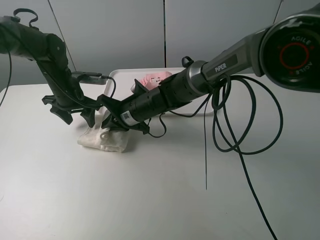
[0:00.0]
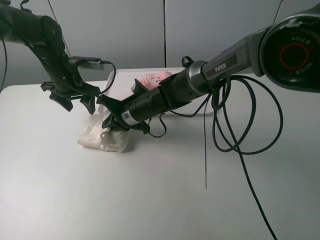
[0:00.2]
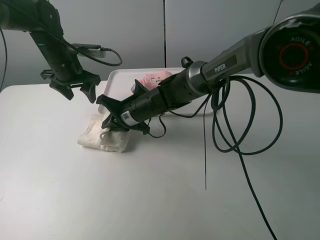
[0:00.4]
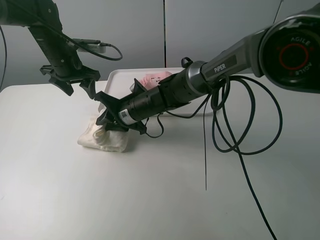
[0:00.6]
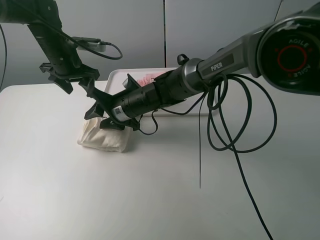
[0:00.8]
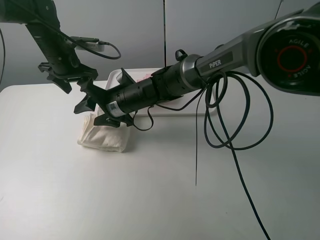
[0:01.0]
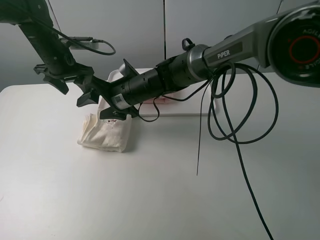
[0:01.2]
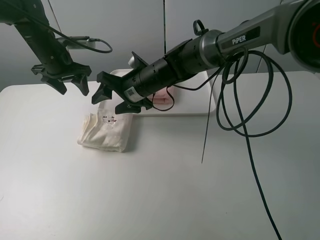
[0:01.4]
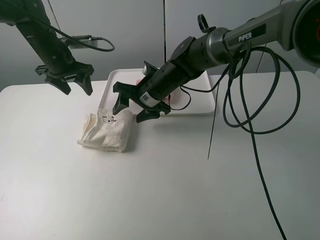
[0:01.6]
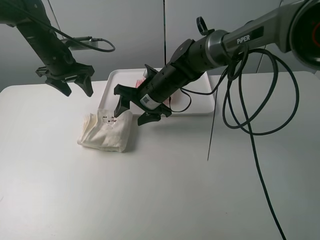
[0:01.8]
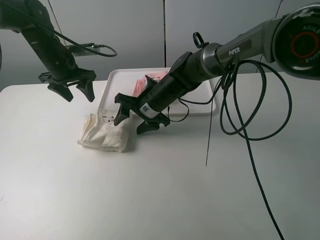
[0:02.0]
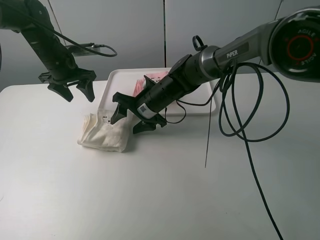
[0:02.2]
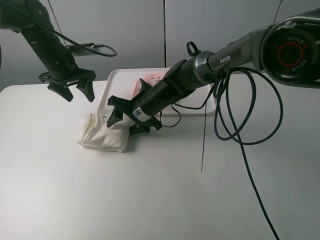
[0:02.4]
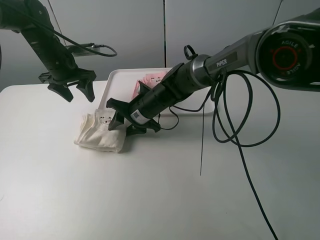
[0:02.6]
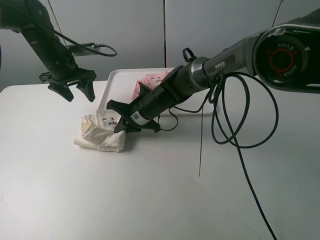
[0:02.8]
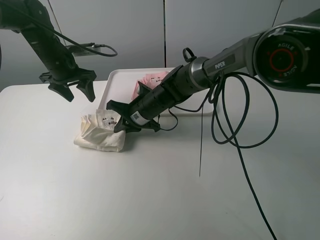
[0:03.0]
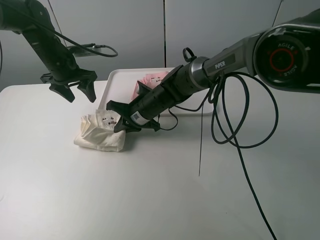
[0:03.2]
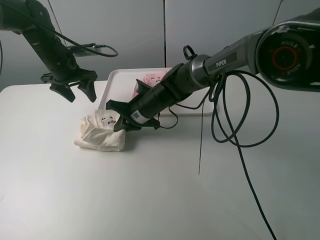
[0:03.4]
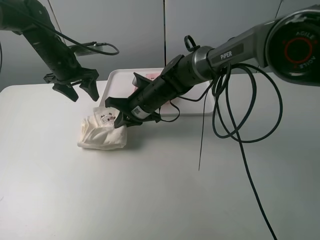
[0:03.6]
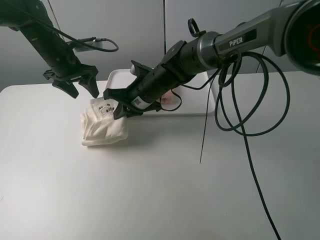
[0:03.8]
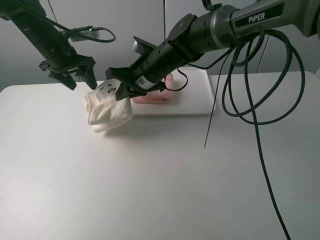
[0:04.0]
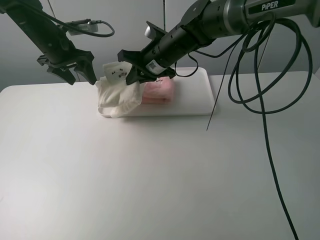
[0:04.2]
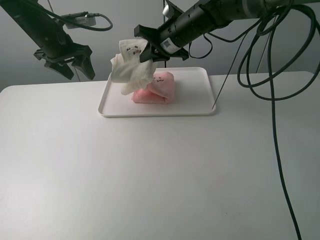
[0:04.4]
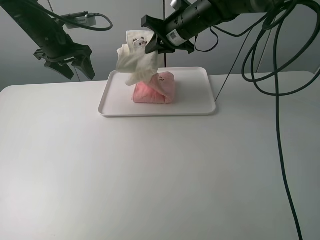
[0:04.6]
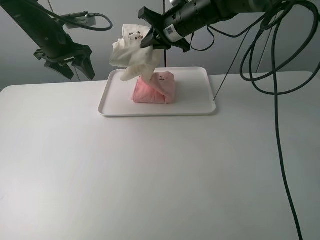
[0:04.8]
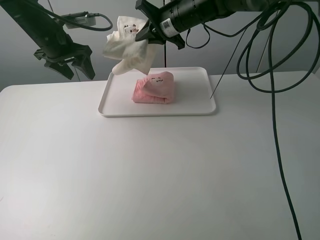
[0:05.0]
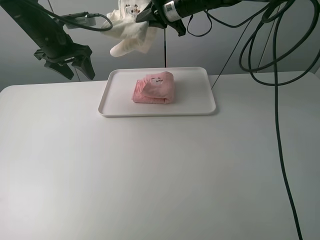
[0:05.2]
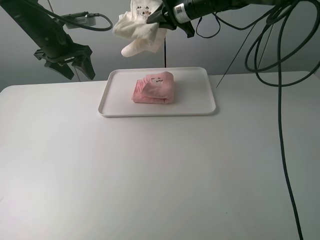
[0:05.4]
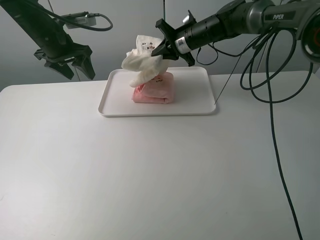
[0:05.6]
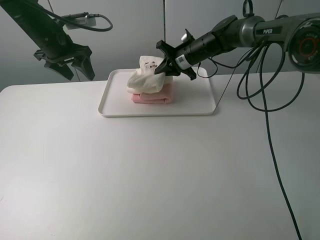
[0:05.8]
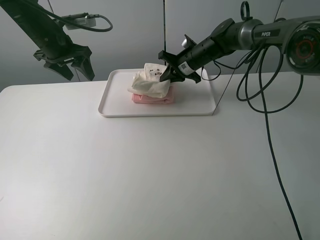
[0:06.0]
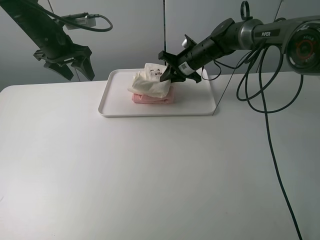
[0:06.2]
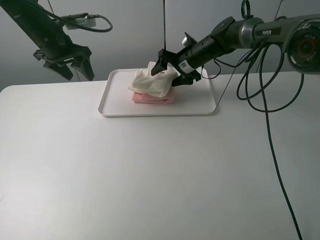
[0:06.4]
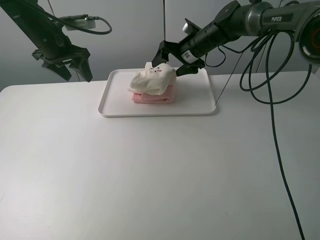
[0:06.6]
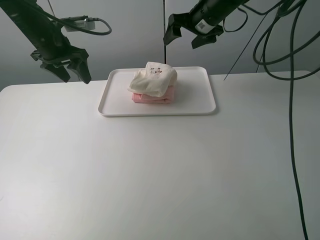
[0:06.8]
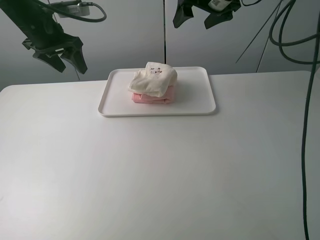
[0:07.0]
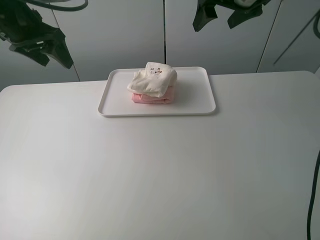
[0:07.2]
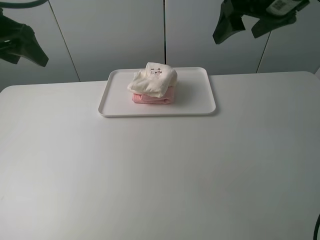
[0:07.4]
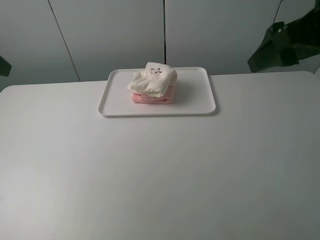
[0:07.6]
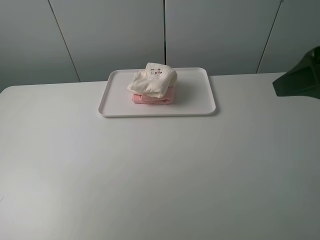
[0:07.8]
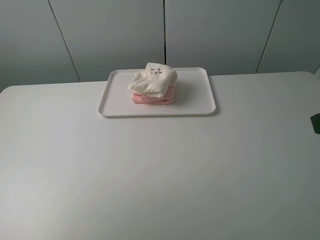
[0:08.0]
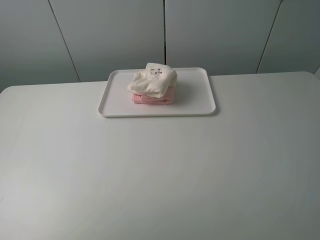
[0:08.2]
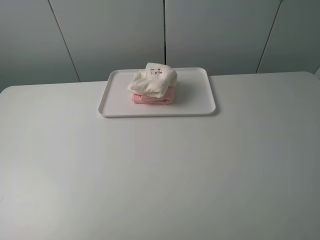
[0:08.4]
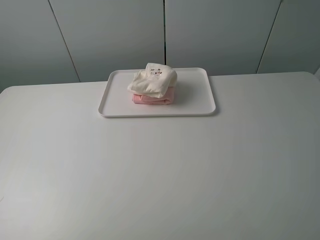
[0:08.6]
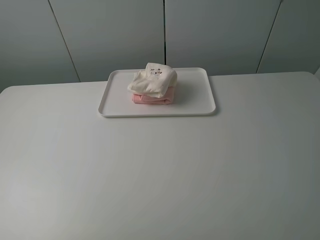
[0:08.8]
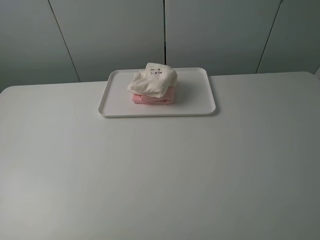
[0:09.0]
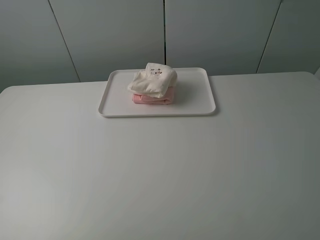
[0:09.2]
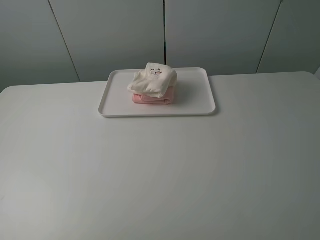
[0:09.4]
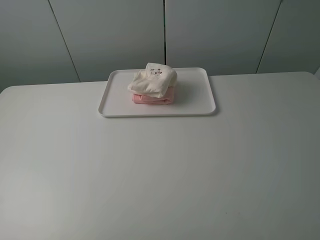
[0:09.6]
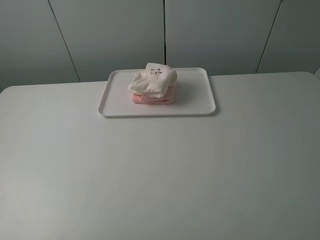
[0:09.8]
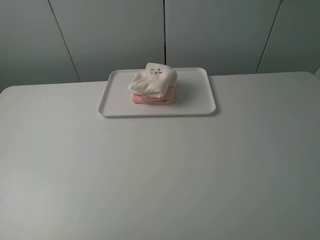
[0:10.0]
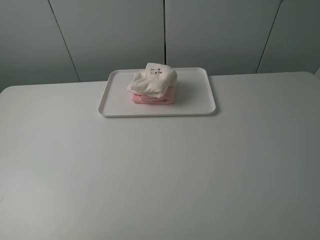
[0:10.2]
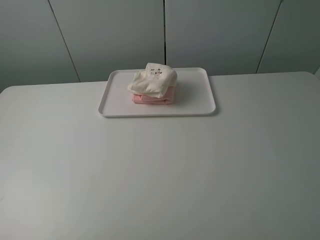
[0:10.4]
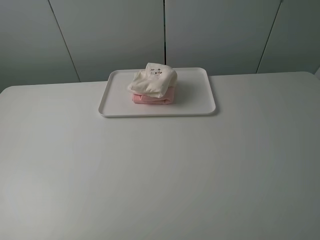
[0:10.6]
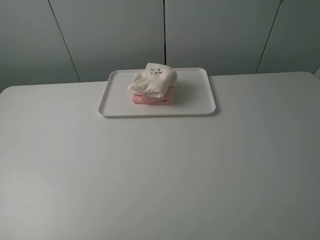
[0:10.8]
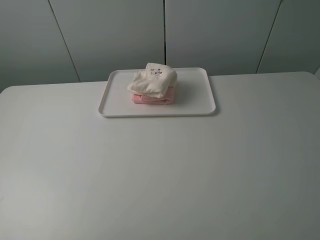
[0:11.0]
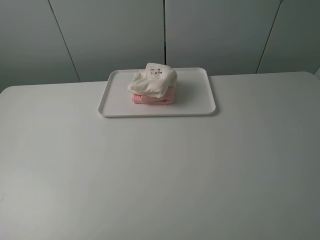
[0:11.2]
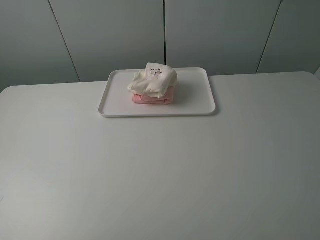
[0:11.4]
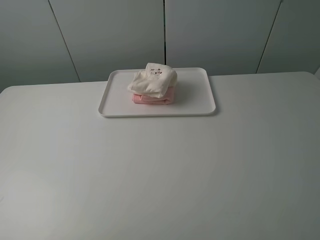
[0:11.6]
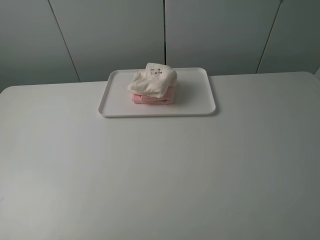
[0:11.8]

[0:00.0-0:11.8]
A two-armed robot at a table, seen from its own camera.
Task of the whole recording: fold one of the towels by two grippers and place it on the tray,then fold another towel by two grippers and place it on the folded towel.
Step, 1.2 to 2.8 s: Grasp the white towel with the right gripper.
Step, 3.0 to 6.6 s: Place the white towel on the pink towel with the right gripper.
0.0 to 1.4 s: The grippers both shift upward by roughly 5 cm. The right gripper opens its fingers.
1.4 to 3.0 s: The right gripper heads downward, covering about 5 cm, and closes its fingers.
3.0 to 4.4 s: The right gripper goes some 20 cm upward, forward and to the right, while the left gripper goes approximately 5 cm upward.
4.4 to 6.0 s: The right gripper shifts roughly 10 cm downward and forward.
6.0 to 7.4 s: The right gripper travels upward, backward and to the right by roughly 30 cm, and opens. The left gripper moves backward and upward, about 20 cm.
7.4 to 8.8 s: The grippers both shift backward by roughly 30 cm.
10.4 to 11.8 s: The two grippers keep their place.

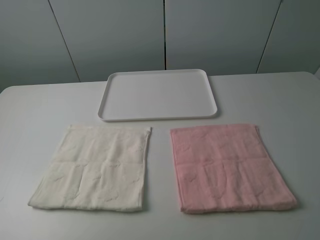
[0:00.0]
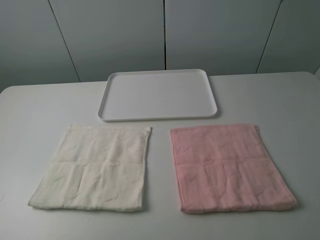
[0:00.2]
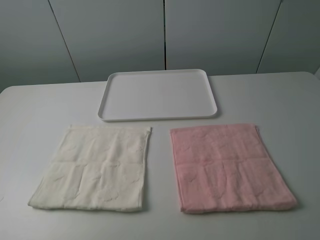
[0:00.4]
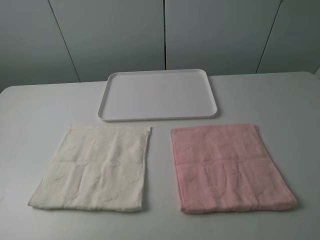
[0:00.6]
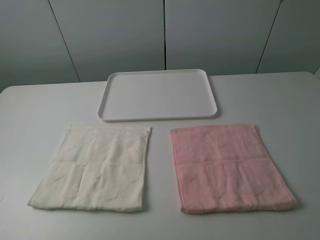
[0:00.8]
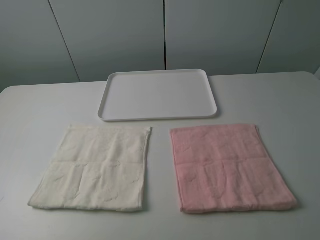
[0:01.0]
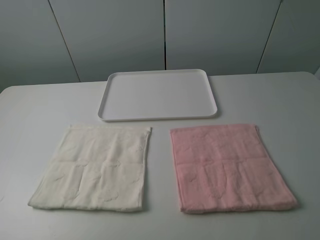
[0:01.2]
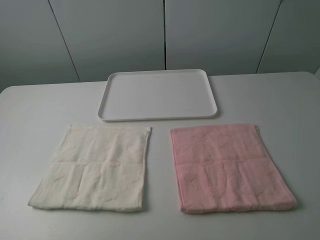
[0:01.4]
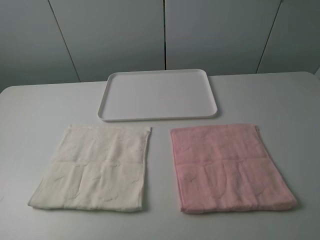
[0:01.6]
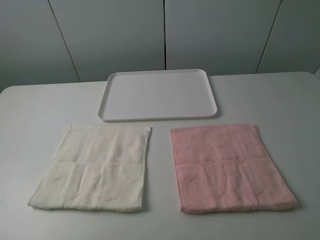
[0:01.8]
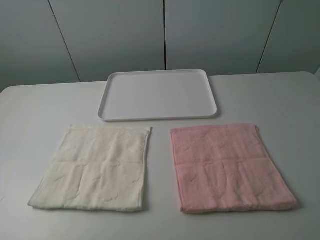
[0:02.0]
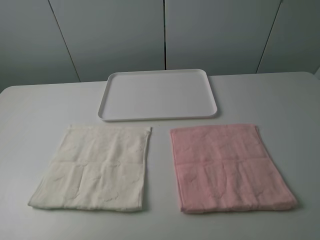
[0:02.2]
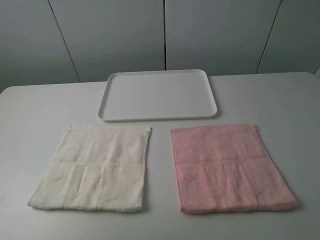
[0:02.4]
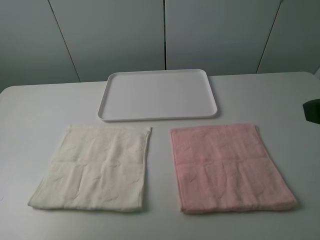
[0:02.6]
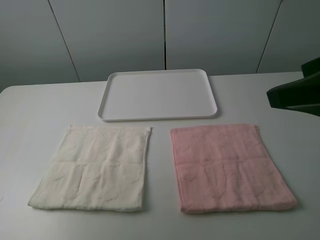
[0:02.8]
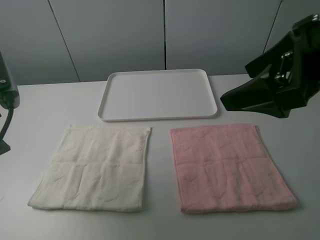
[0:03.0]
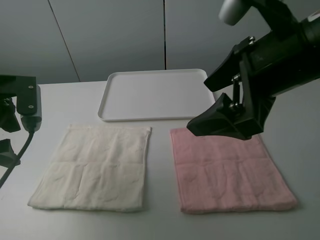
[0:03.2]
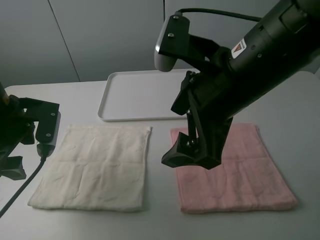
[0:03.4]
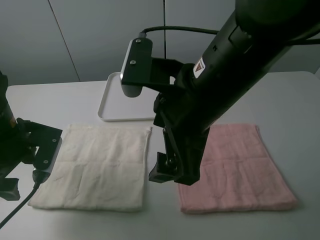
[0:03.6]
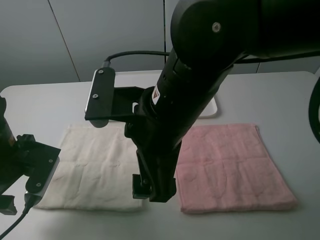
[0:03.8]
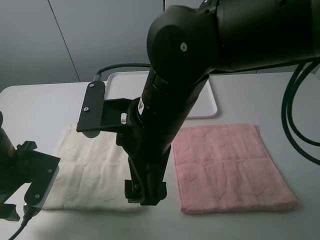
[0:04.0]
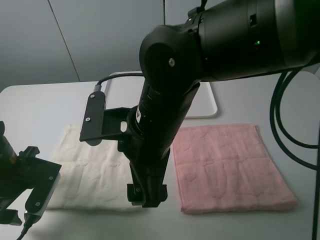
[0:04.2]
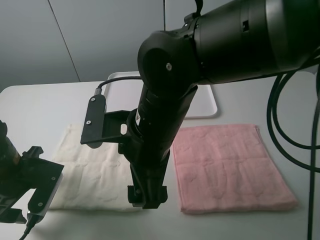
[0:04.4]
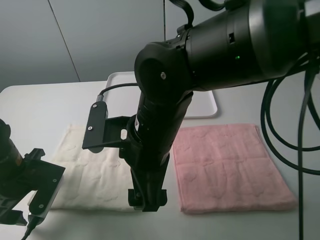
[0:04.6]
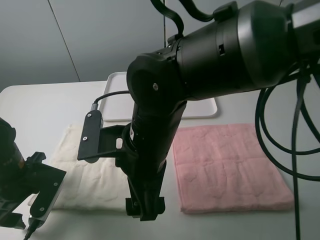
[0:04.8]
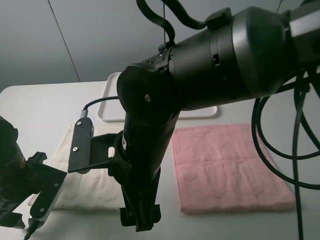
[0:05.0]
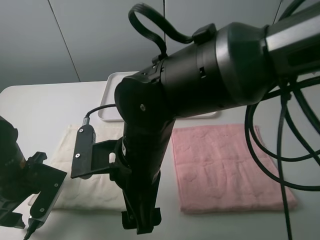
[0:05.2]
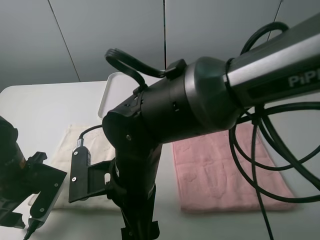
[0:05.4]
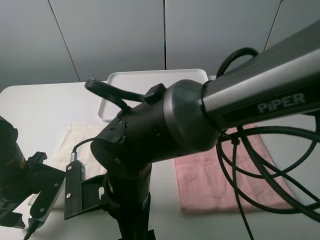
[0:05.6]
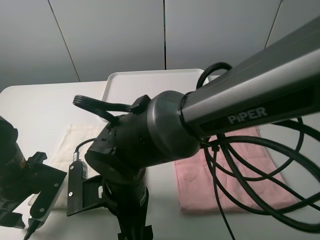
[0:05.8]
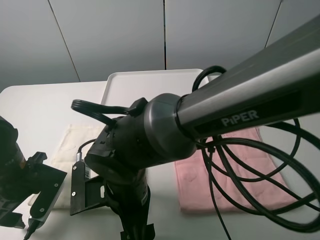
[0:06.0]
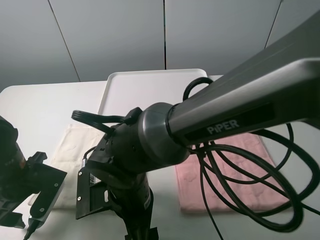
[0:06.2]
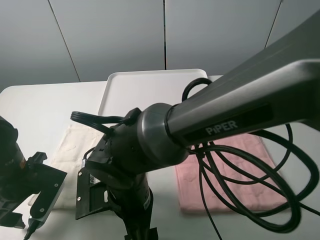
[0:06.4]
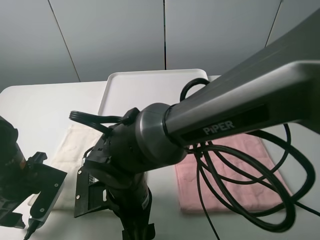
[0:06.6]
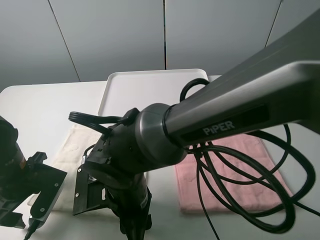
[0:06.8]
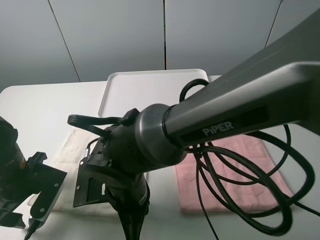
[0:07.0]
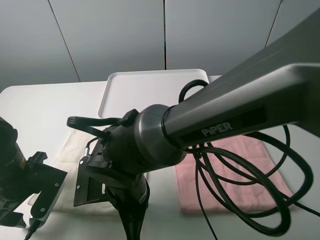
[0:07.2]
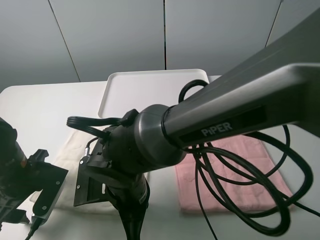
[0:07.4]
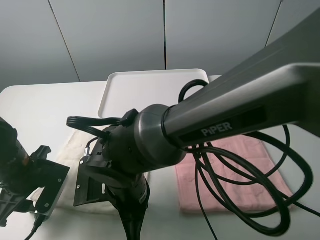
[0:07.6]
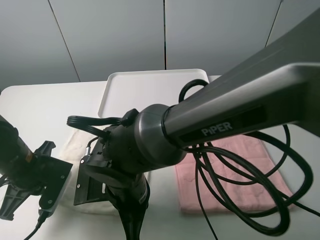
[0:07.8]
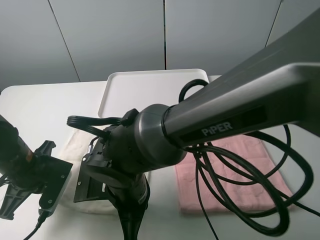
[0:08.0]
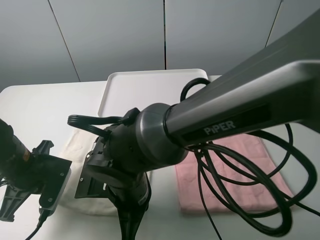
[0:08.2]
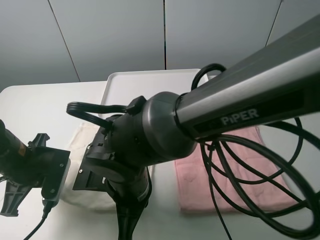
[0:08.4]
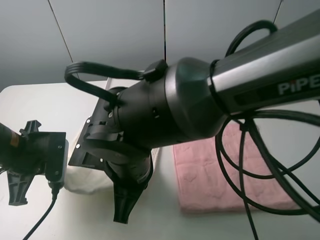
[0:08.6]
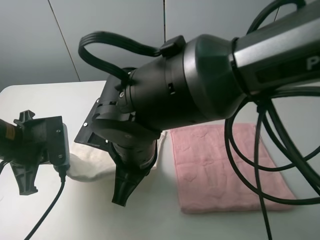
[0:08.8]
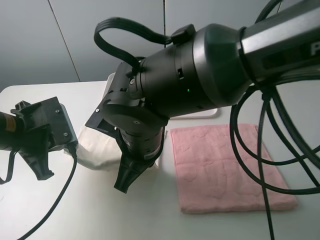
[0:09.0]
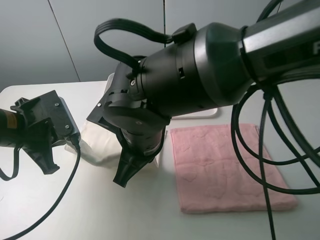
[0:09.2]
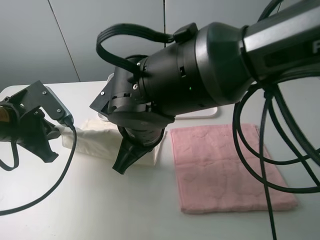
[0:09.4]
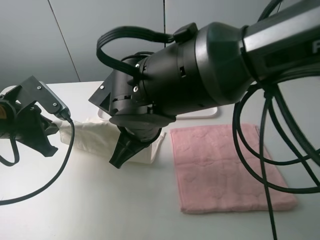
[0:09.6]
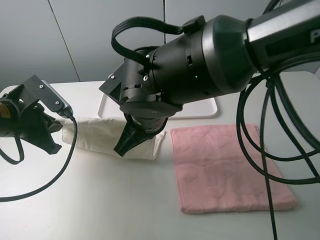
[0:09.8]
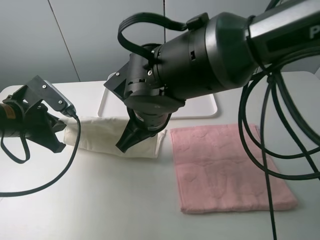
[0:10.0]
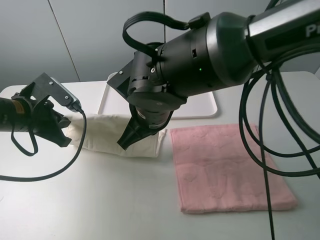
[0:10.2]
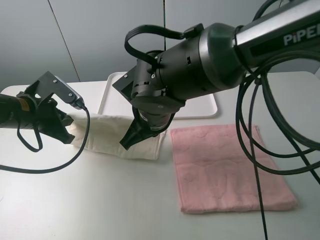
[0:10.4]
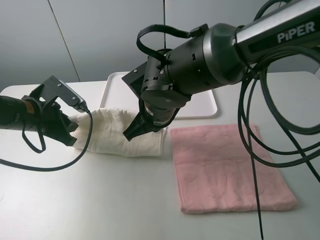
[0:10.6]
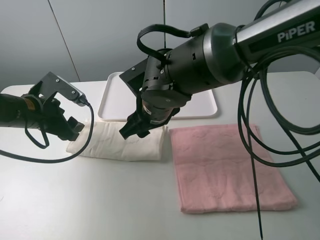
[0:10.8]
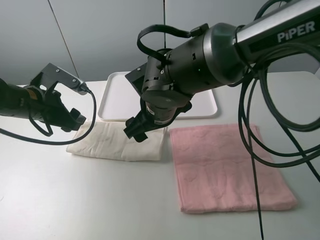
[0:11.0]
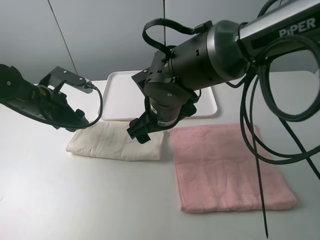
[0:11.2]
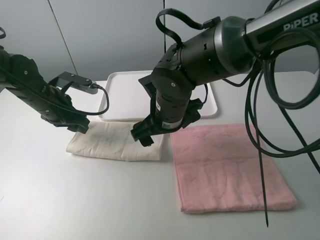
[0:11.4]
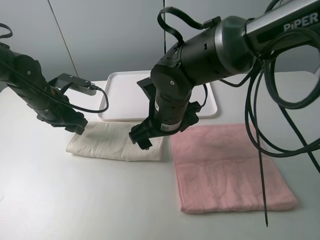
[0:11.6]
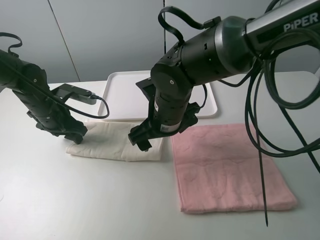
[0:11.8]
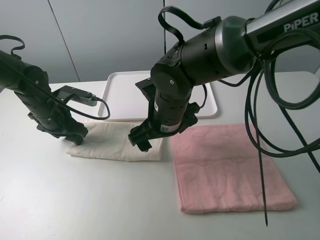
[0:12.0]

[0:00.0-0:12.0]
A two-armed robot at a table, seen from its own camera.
Task of the whole recording: fold one of the towels by two grippers and place it on the tray,then fold another towel by two grippers and place it on the folded towel.
Step, 0.0 to 7.8 s: Grasp the white towel with the left gripper.
Step, 8.2 to 11.0 s: Fold the white towel upwards with the left gripper.
0.0 to 1.6 s: Neither gripper changes place.
1.6 to 3.0 s: The right gripper moves forward and to the left, some 20 cm. Meanwhile the left gripper is displaced forward by approximately 20 cm.
3.0 to 4.4 s: The left gripper is displaced downward by approximately 15 cm; the right gripper goes some 20 cm to the left and downward.
4.4 to 6.0 s: The right gripper goes approximately 10 cm downward.
6.0 to 7.6 s: The left gripper closes. Meanwhile the right gripper closes its fingers.
7.6 to 9.0 s: Both grippers travel together upward, roughly 10 cm. The left gripper closes its fingers.
9.0 to 10.4 s: Both grippers move forward, approximately 5 cm.
10.4 to 12.0 s: The right gripper opens. The left gripper shifts roughly 5 cm forward, and opens up.
